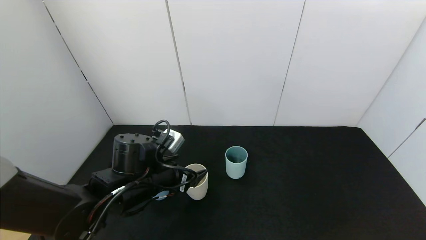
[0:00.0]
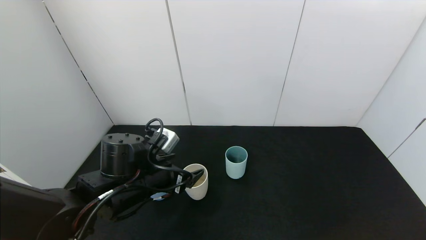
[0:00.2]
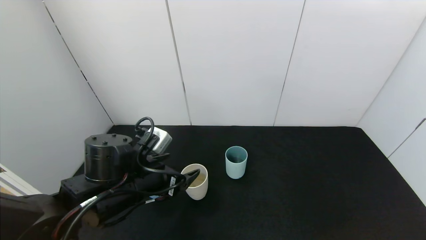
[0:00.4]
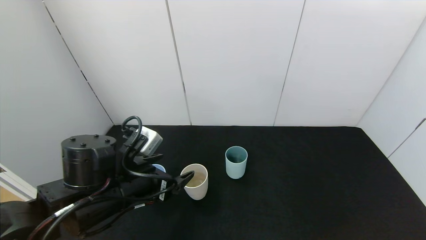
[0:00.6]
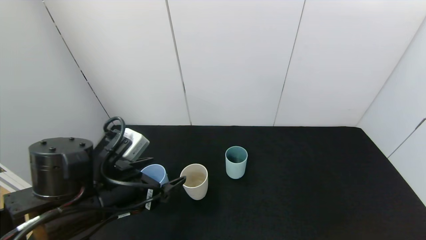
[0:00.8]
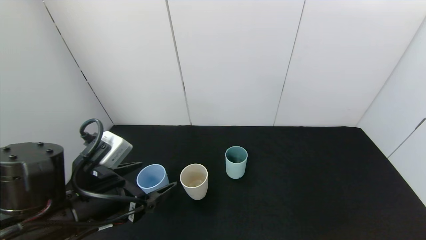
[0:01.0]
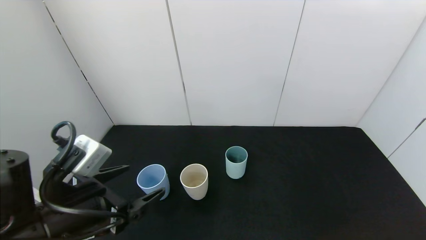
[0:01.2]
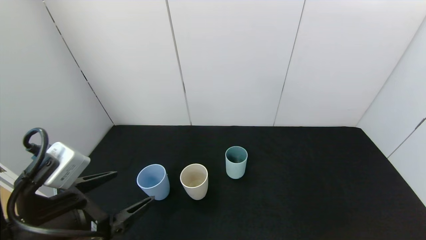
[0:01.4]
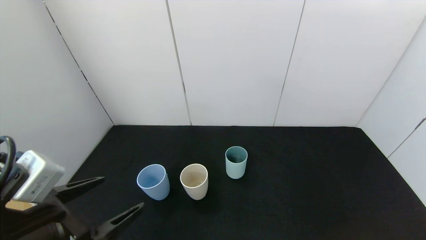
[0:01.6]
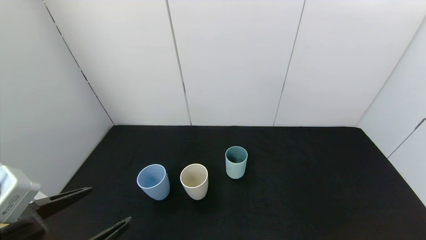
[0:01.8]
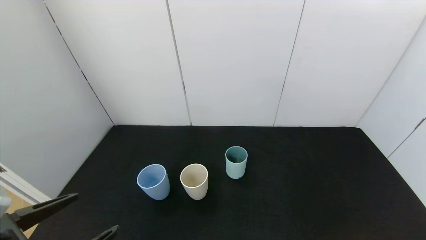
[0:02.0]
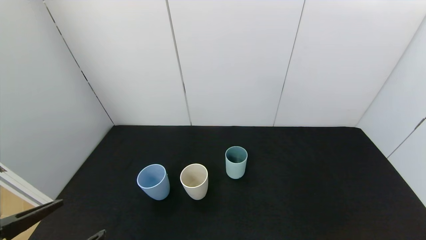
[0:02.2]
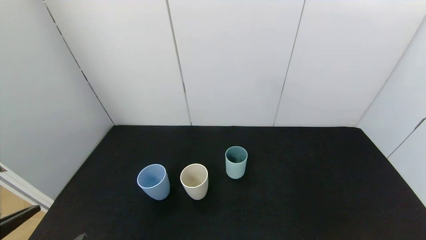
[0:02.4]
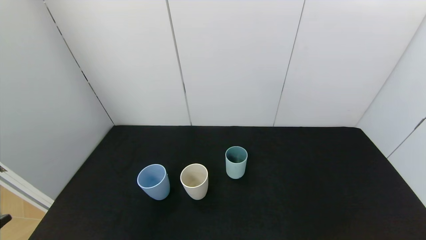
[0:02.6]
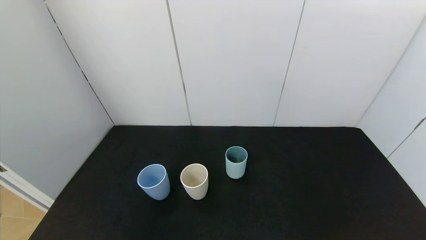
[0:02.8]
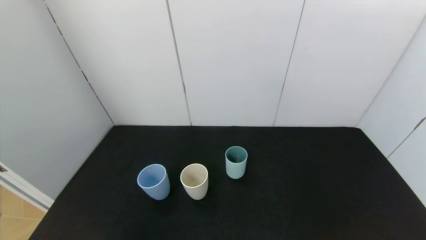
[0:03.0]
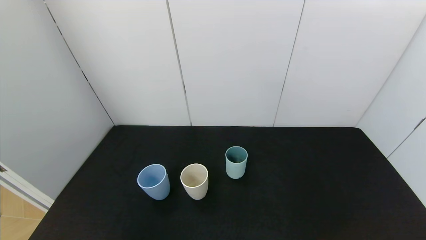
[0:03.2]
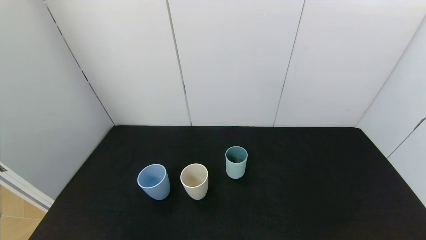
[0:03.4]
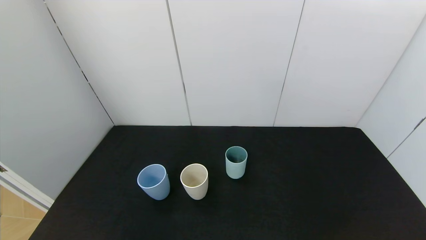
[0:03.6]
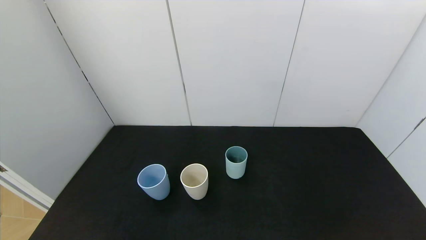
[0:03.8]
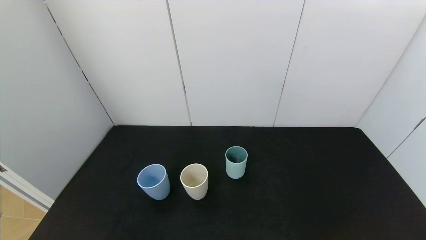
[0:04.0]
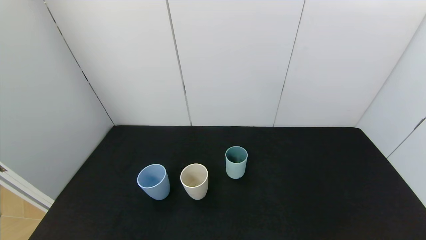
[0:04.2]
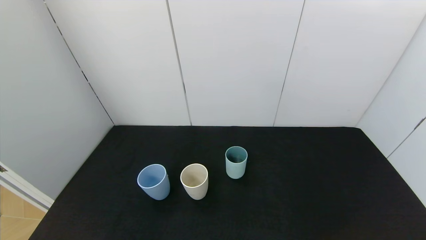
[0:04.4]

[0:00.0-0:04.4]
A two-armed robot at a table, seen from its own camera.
Task of the whole recording: use the gripper to pour the water into the other two cups on black table.
0:00.0 to 0:01.4: The left gripper is displaced backward, to the left and upward by some 15 cm.
0:01.4 to 0:03.0: The left gripper is displaced backward and to the left by roughly 15 cm.
